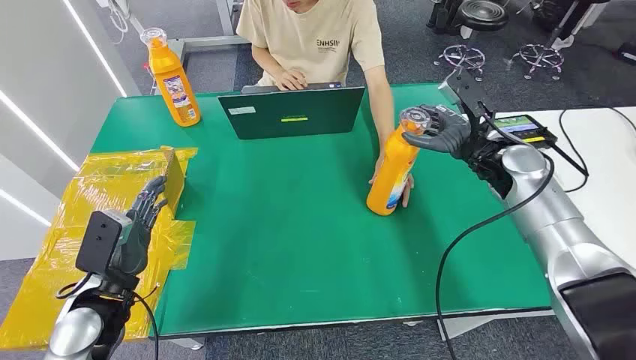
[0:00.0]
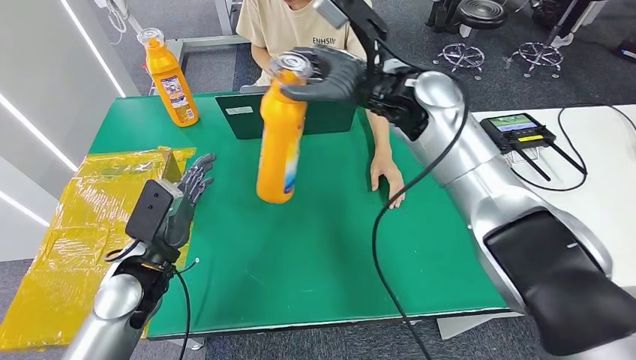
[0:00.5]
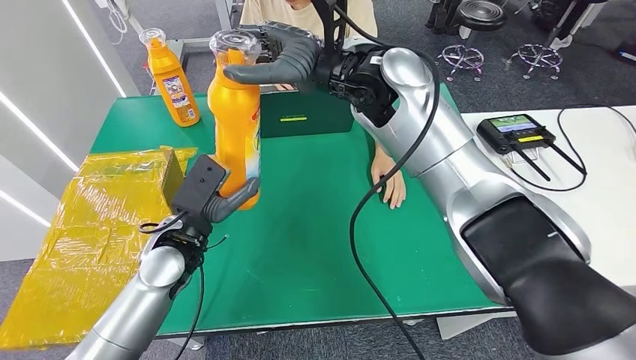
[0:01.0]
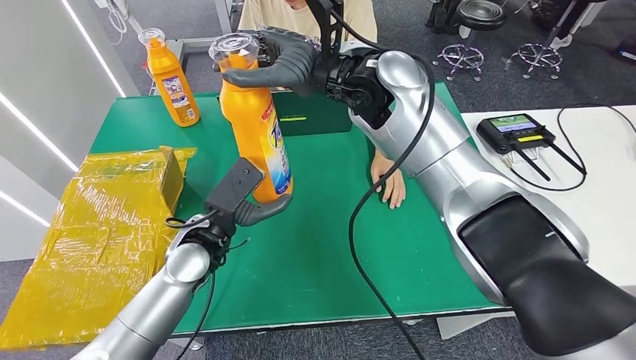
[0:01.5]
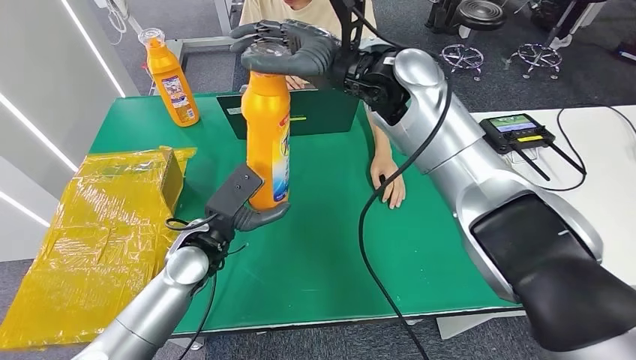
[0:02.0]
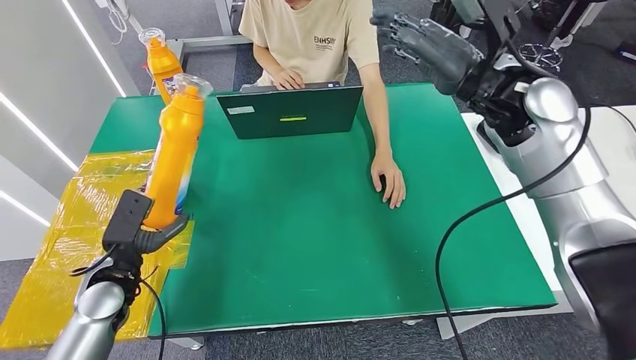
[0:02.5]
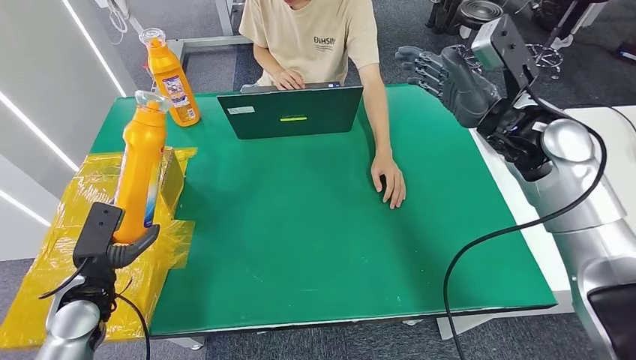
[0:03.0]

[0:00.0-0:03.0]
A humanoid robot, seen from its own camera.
Step, 0:00.0 to 0:01.0: Pick up the bottle from the table.
Step, 0:01.5 to 0:03.0: Turn the bottle to the front side.

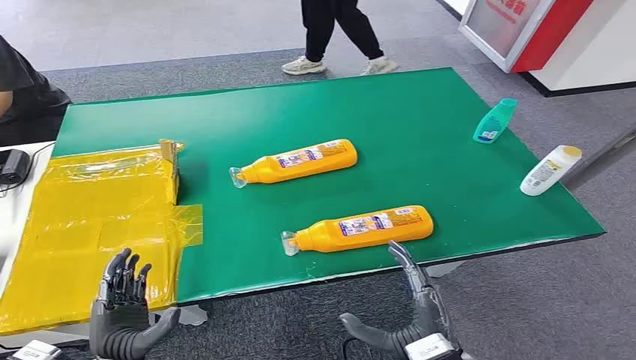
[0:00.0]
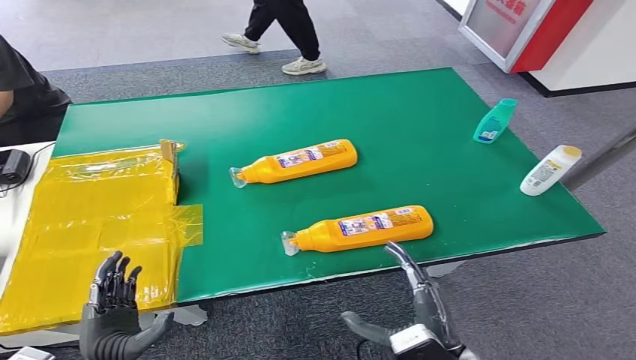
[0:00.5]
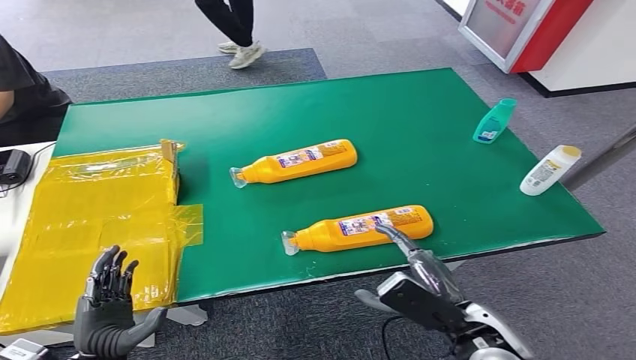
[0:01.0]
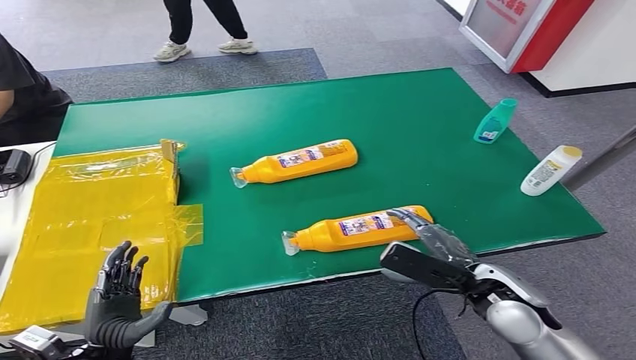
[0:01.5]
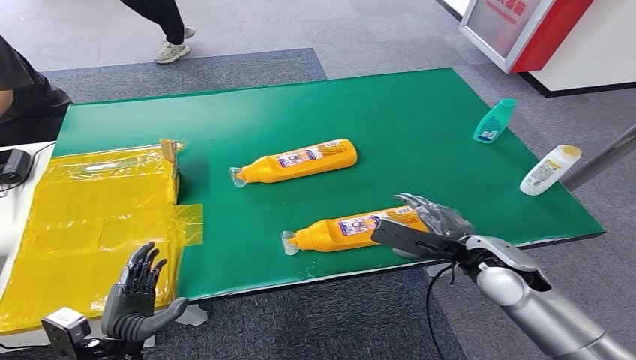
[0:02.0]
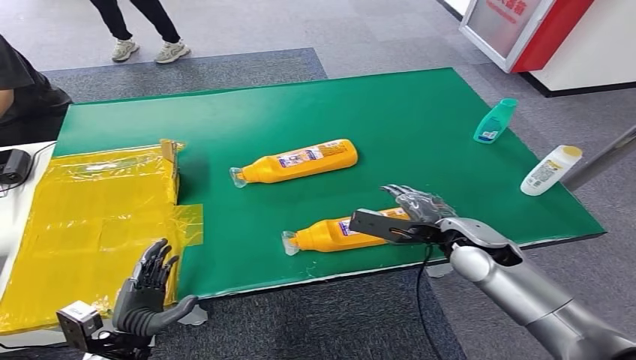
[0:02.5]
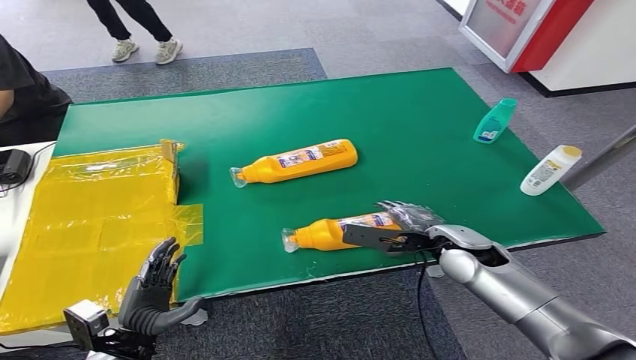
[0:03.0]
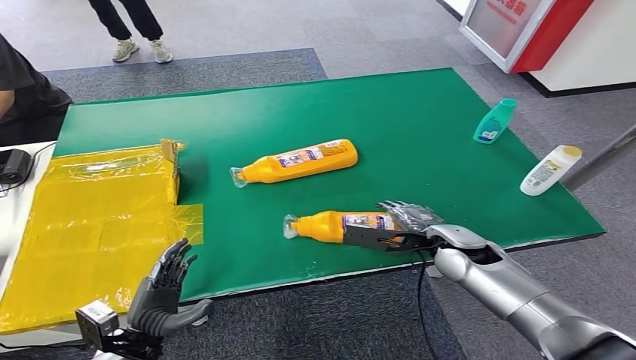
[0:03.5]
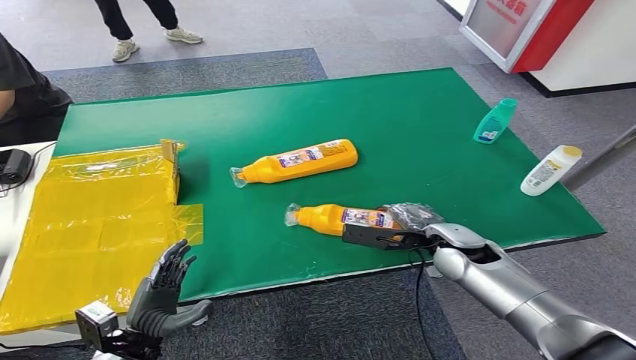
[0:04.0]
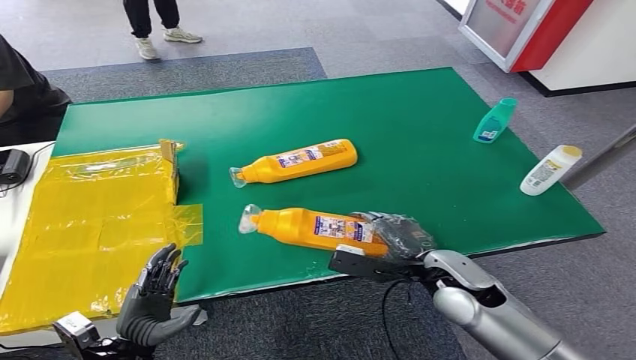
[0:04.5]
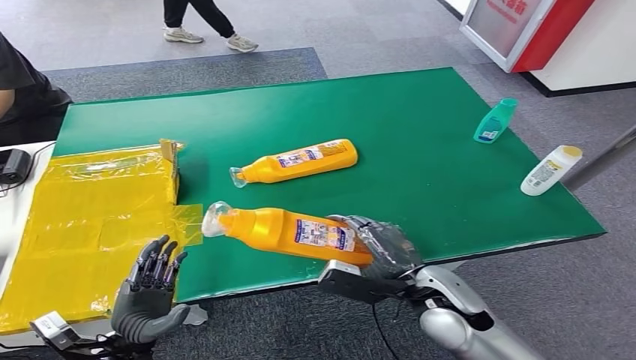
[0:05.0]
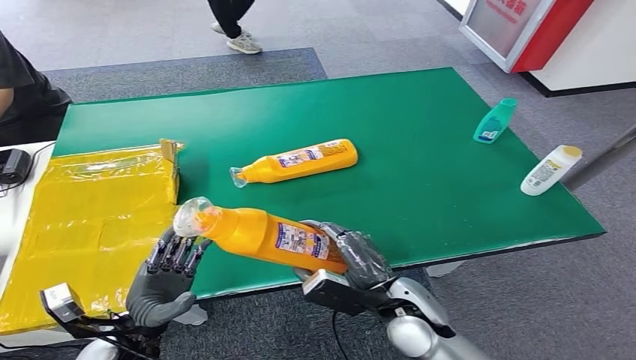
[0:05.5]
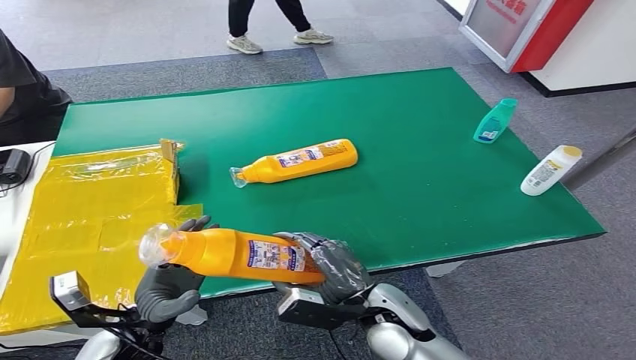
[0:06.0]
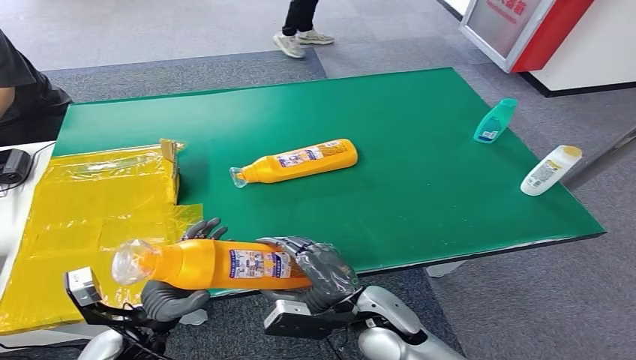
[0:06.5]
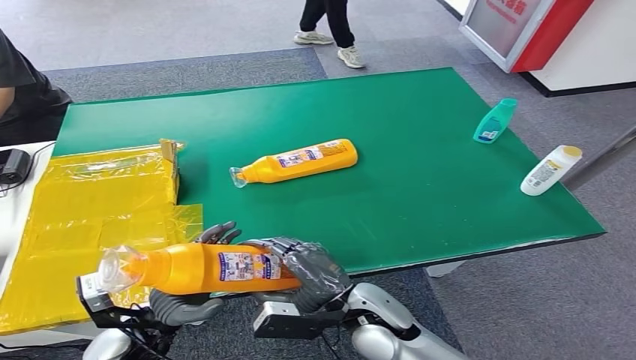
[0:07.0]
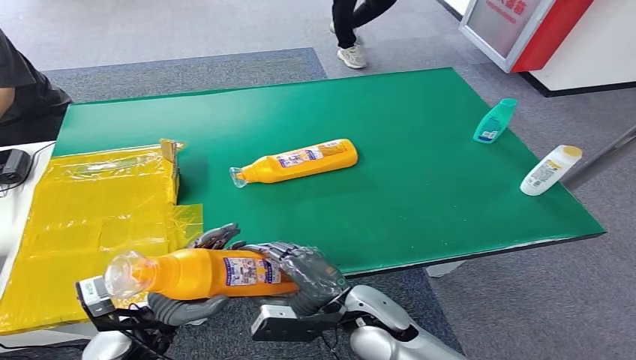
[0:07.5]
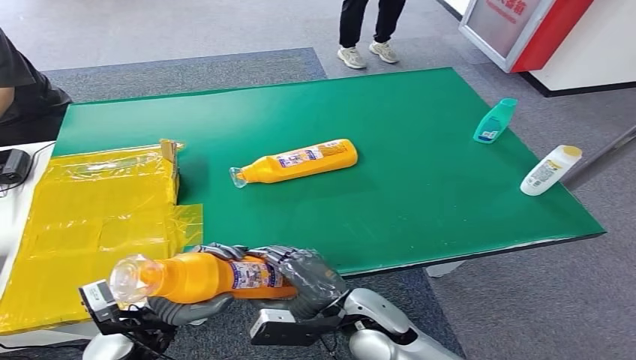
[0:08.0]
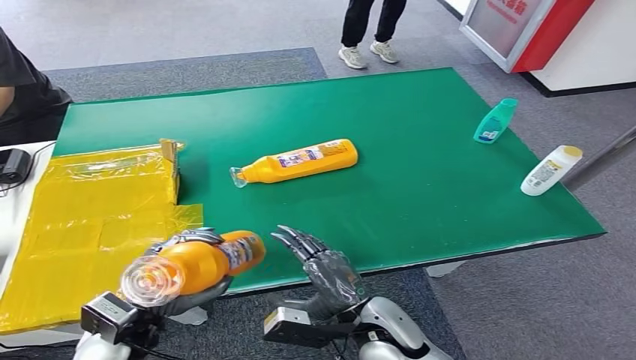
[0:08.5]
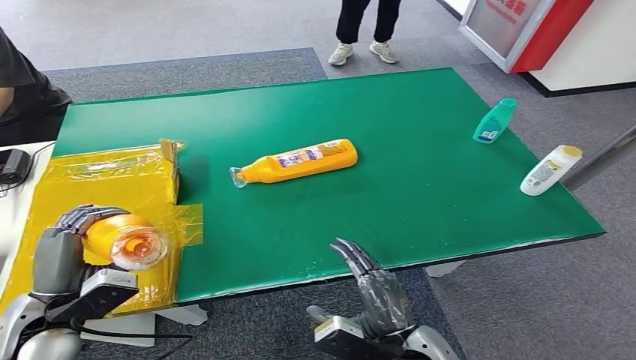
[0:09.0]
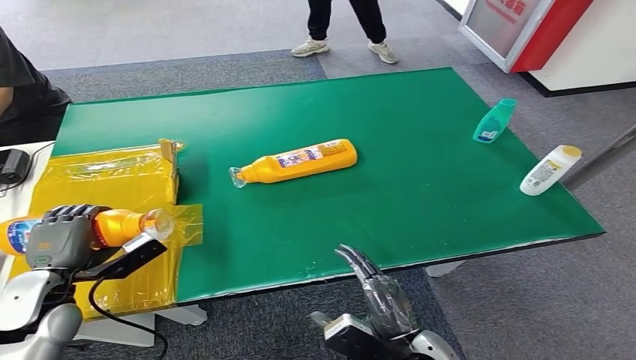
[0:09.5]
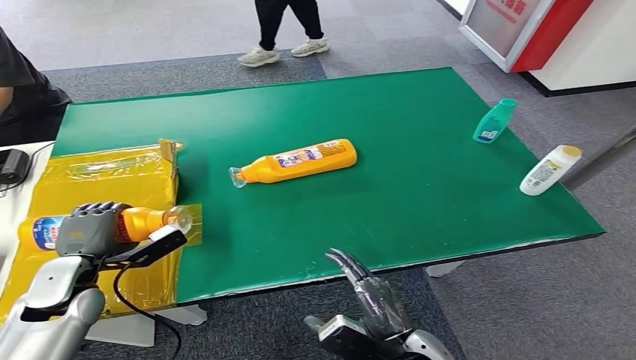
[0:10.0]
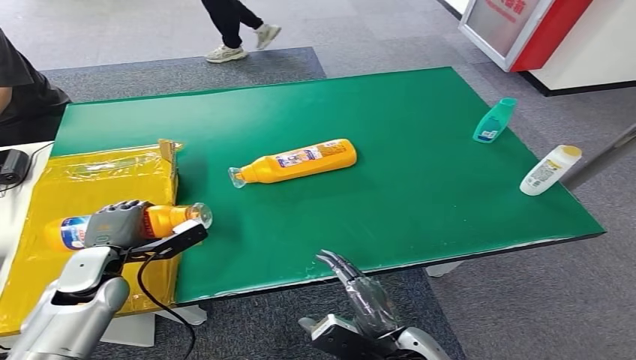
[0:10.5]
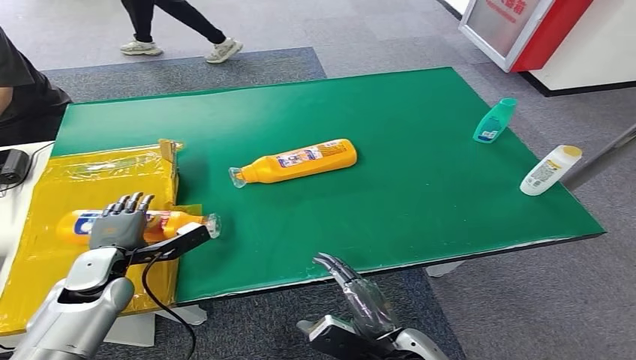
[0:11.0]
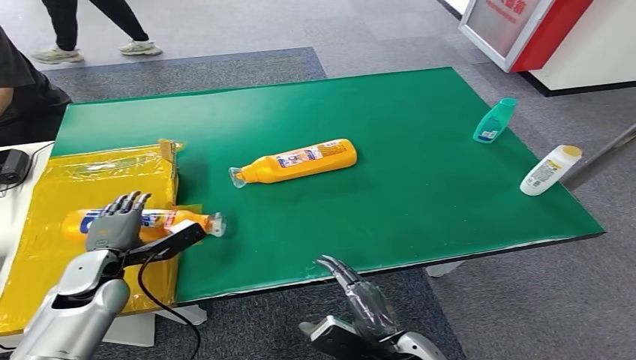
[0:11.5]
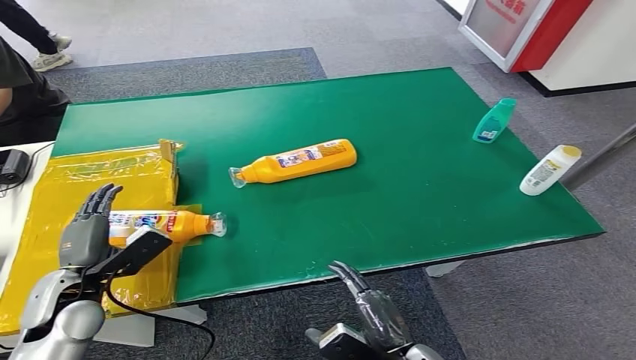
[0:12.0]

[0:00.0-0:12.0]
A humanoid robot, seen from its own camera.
Step, 0:00.0 to 0:05.0: Pick up the bottle from the table.
Step, 0:05.5 to 0:12.0: Turn the bottle to the front side.
0:02.0 to 0:04.0: The right hand heads forward, covering approximately 5 cm.
0:06.0 to 0:08.0: The hands move only a little.
